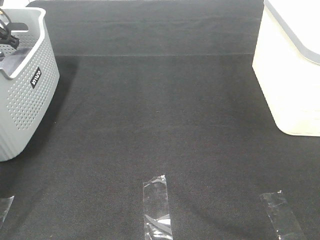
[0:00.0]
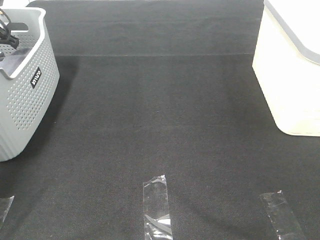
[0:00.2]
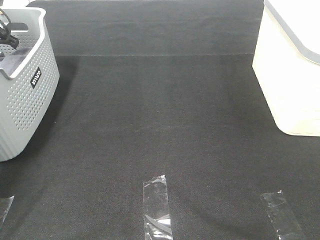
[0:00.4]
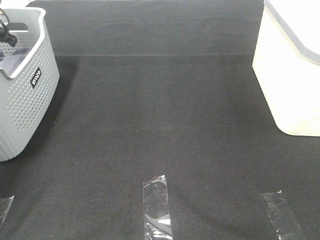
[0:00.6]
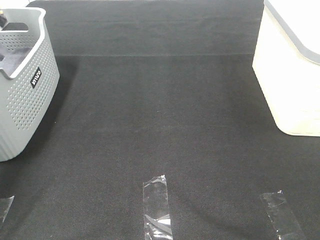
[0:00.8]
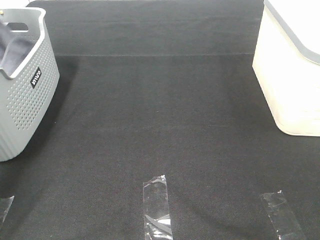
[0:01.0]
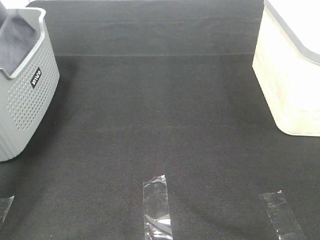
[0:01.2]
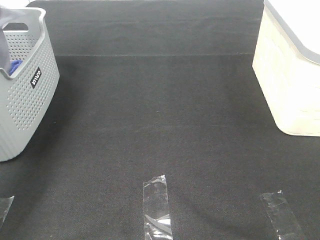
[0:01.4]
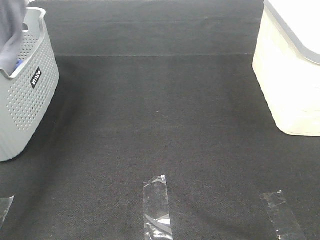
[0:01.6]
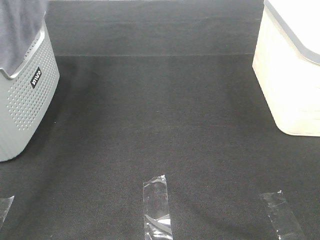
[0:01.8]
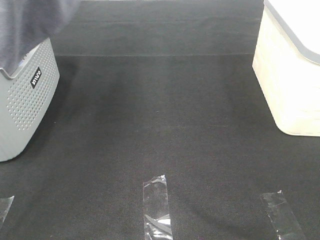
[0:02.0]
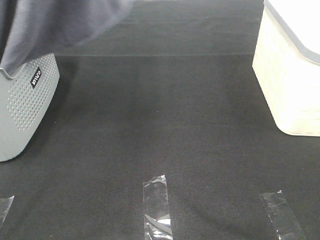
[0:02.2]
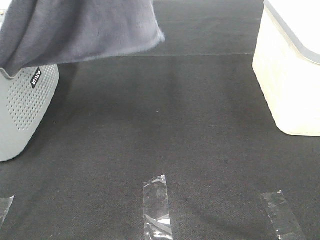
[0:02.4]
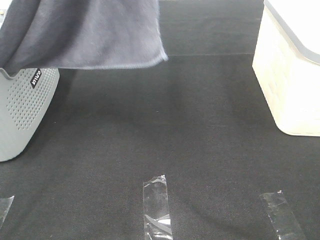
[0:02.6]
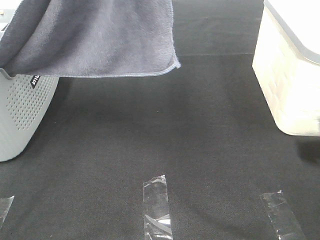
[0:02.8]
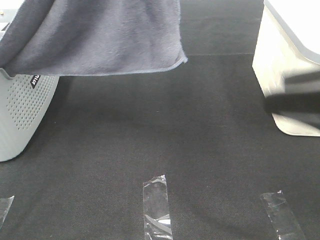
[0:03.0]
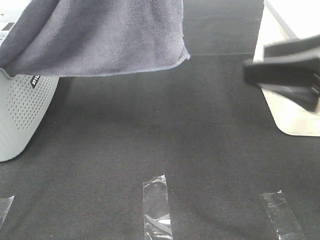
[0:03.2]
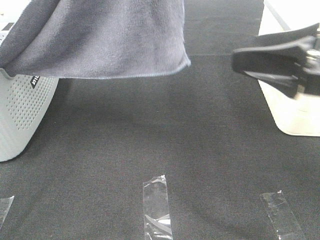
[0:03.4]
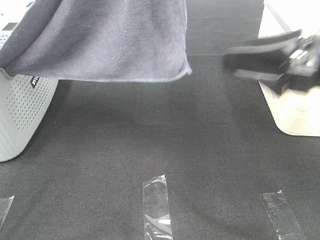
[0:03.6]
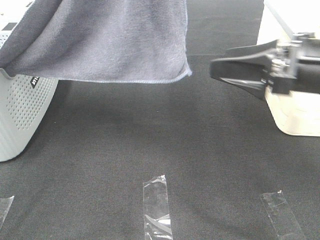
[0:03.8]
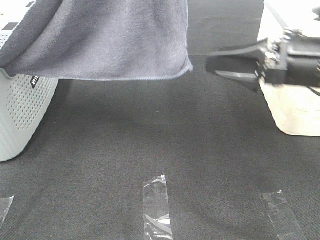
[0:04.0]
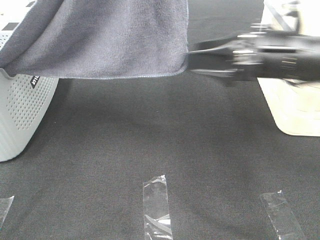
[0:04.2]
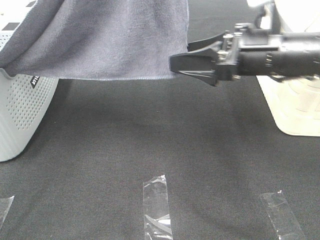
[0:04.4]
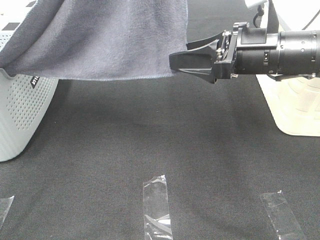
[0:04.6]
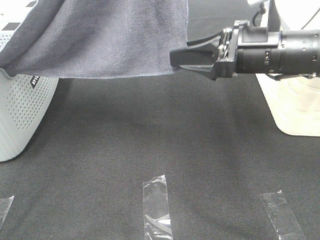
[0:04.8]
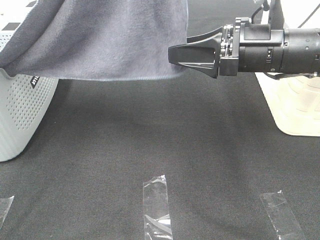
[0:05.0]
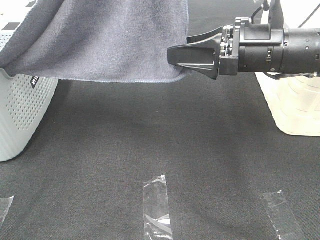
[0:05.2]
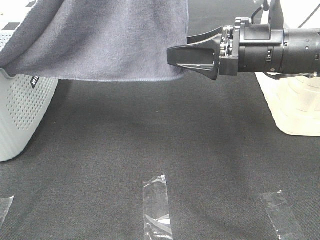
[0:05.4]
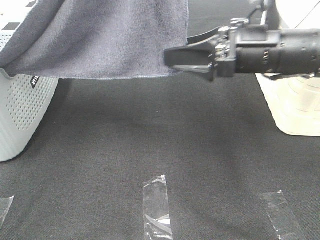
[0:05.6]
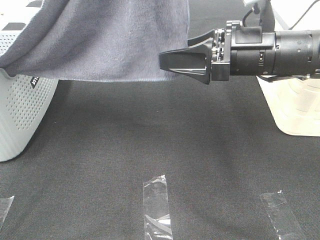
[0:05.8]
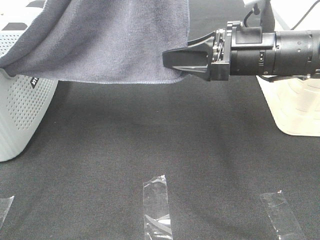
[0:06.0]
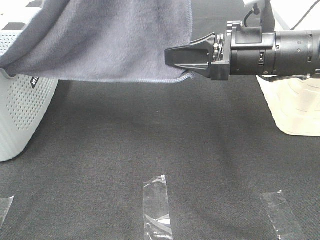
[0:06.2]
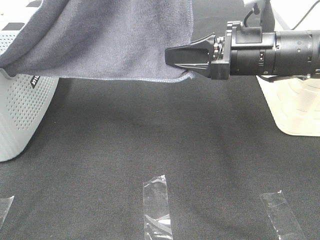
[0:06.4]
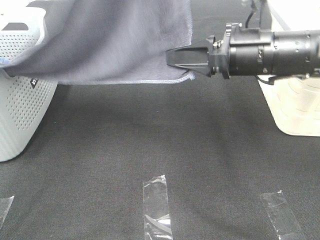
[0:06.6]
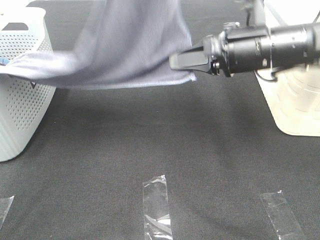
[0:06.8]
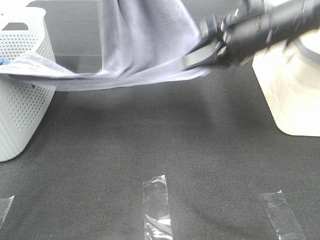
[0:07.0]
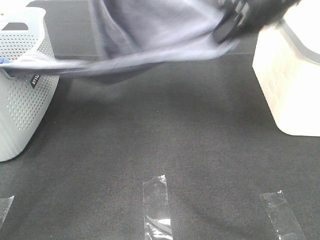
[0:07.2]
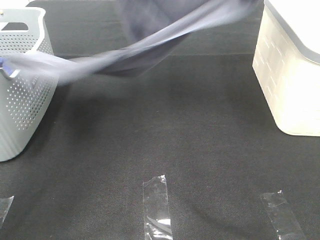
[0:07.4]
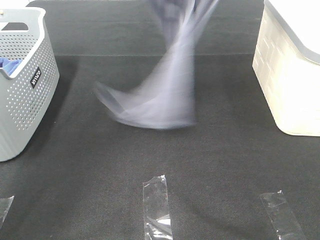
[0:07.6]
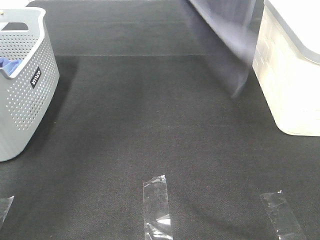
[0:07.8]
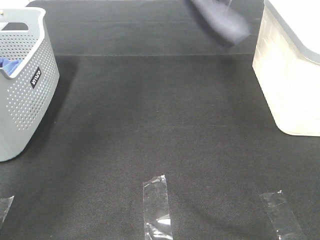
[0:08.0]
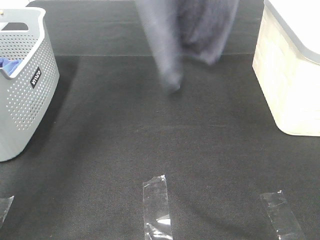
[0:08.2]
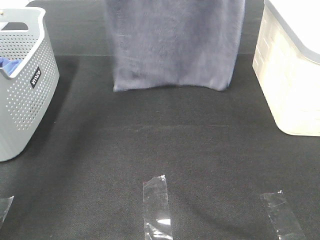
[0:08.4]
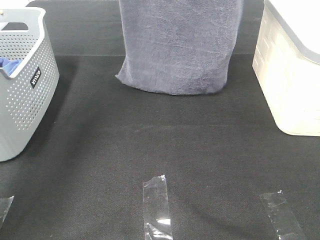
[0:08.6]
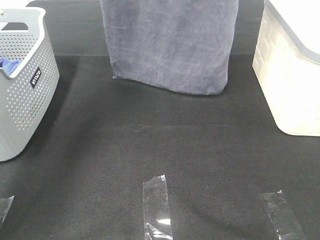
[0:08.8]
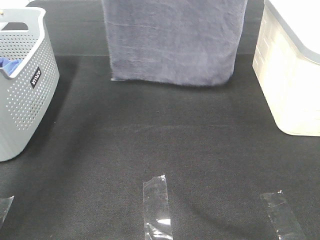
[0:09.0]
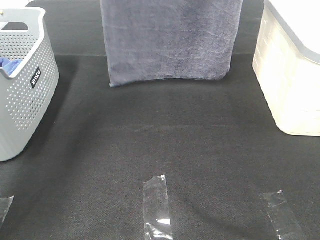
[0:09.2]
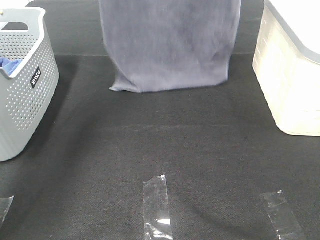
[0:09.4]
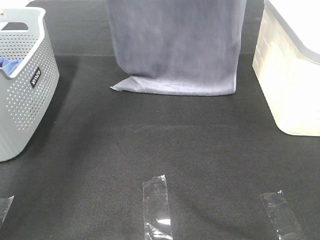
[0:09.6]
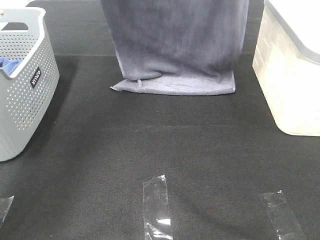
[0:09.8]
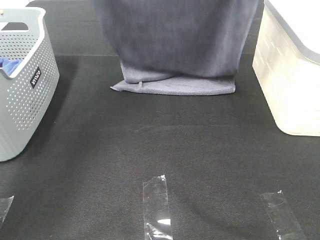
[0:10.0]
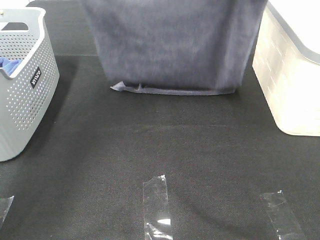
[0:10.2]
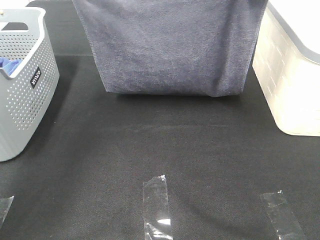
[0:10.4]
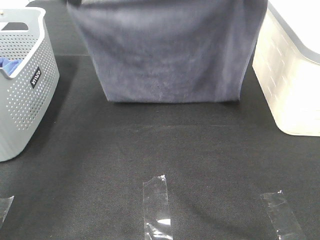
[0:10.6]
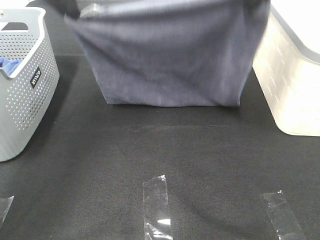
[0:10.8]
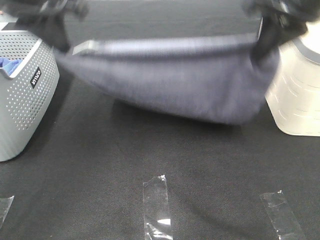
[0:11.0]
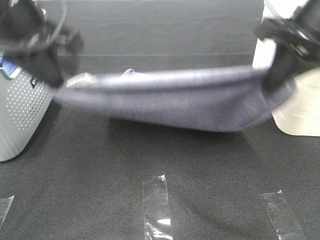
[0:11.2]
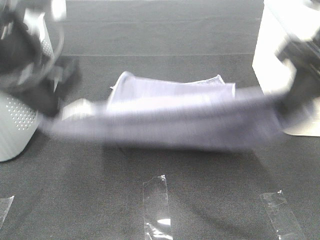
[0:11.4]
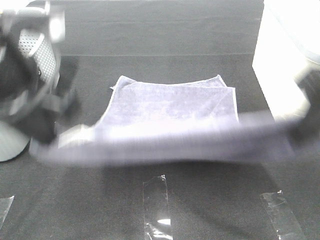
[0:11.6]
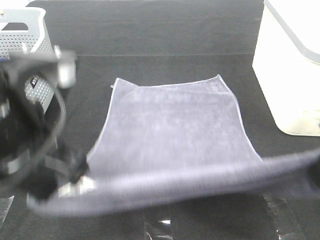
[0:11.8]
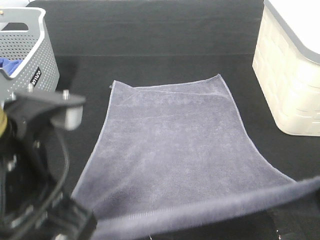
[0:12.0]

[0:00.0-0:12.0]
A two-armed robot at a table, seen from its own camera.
Task of the whole recording: Remove the towel and place it.
Step, 0:01.8 to 0:05.6: Right hand: grab a corner of the grey towel and straighten it.
Step, 0:05.8 to 0:09.2: Left hand: spread the grey towel flat on the table.
Step, 0:05.8 to 0:09.2: Right hand: spread the grey towel flat on the table.
0:00.0 to 0:01.6: The left gripper heads upward and backward, covering some 35 cm, and closes its fingers.
0:01.6 to 0:03.0: The left gripper shifts about 25 cm to the right and backward; the right gripper goes some 15 cm forward and to the left.
0:03.0 to 0:04.4: The right gripper travels forward, downward and to the left by about 20 cm.
0:04.4 to 0:06.0: The right gripper closes.
0:06.0 to 0:07.6: The left gripper heads forward and to the left, covering roughly 20 cm, while the right gripper goes about 25 cm upward.
0:09.0 to 0:10.4: The two grippers go some 10 cm downward.
0:10.4 to 0:12.0: The left gripper shifts about 30 cm backward, while the right gripper heads backward and downward, covering about 30 cm.

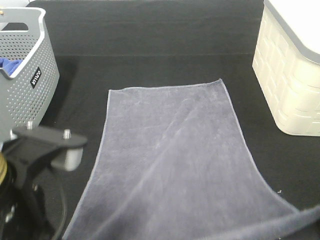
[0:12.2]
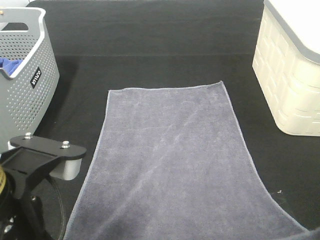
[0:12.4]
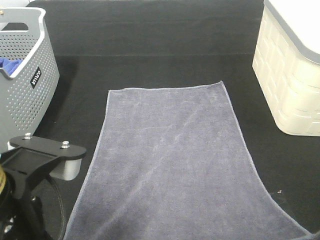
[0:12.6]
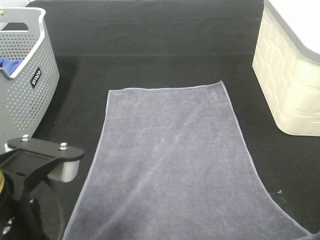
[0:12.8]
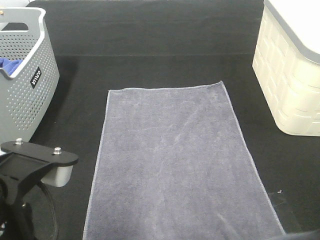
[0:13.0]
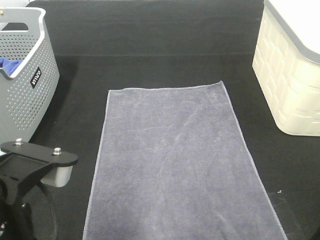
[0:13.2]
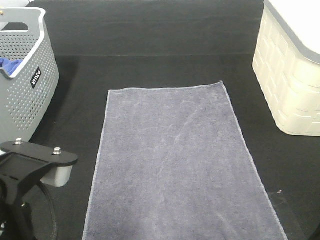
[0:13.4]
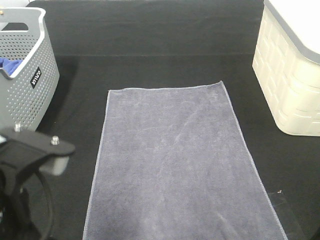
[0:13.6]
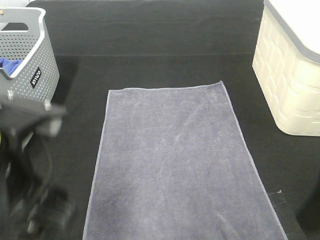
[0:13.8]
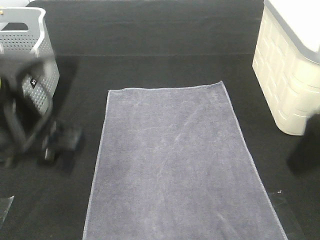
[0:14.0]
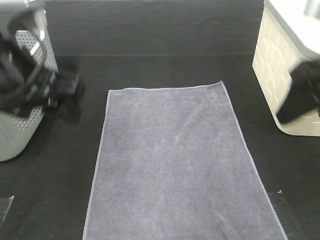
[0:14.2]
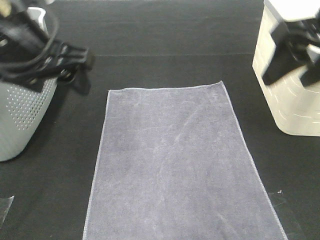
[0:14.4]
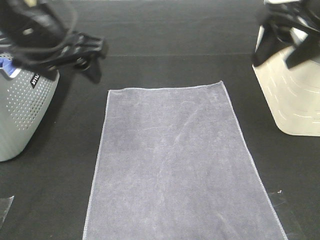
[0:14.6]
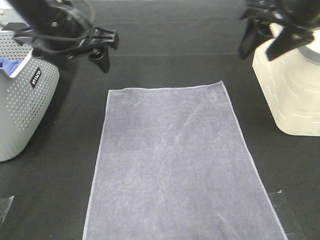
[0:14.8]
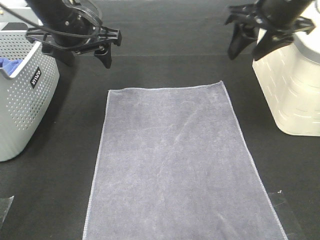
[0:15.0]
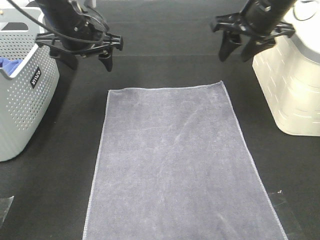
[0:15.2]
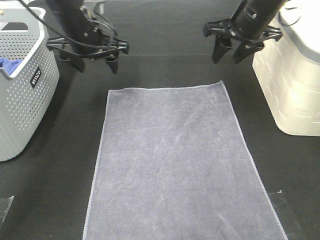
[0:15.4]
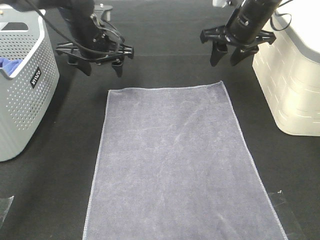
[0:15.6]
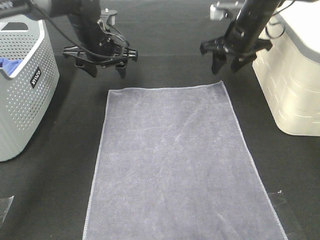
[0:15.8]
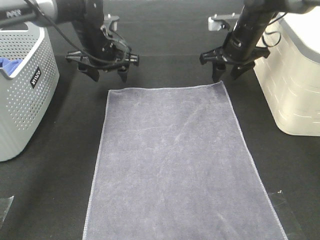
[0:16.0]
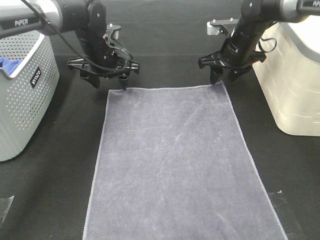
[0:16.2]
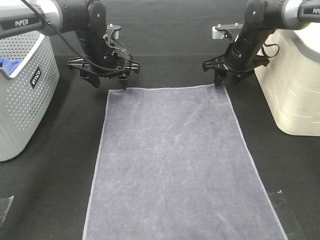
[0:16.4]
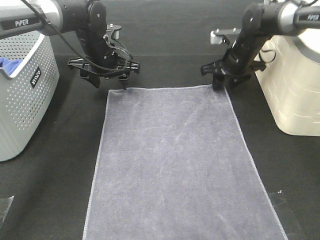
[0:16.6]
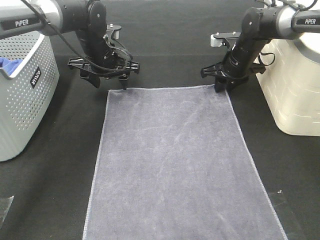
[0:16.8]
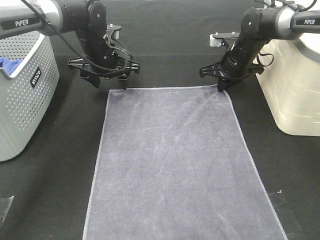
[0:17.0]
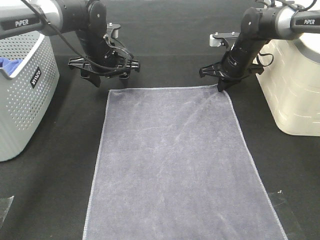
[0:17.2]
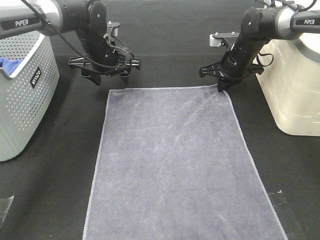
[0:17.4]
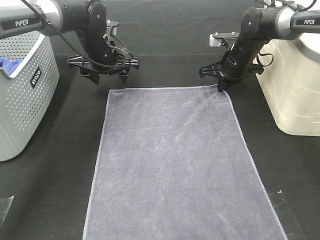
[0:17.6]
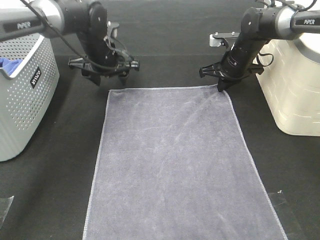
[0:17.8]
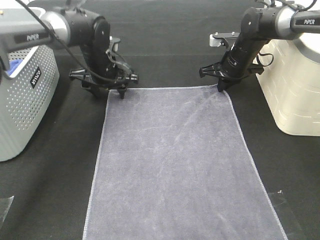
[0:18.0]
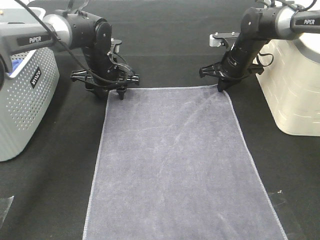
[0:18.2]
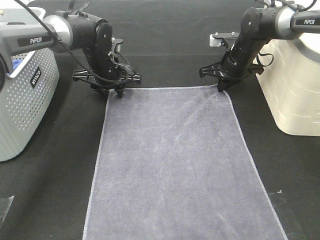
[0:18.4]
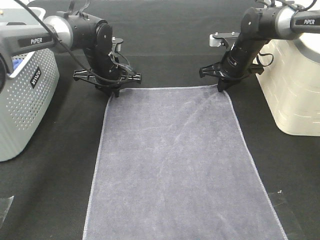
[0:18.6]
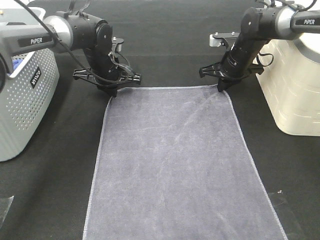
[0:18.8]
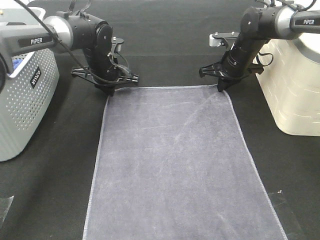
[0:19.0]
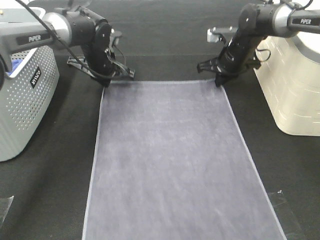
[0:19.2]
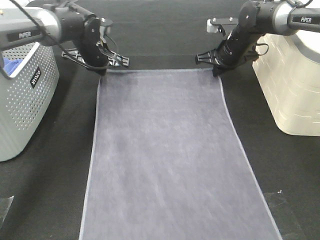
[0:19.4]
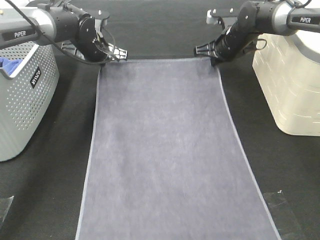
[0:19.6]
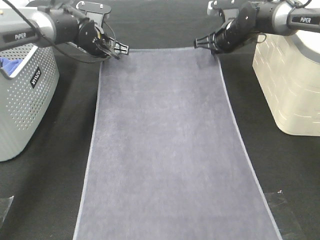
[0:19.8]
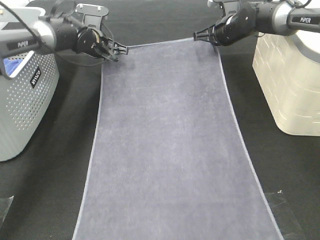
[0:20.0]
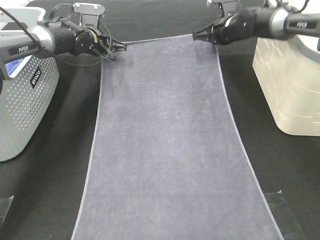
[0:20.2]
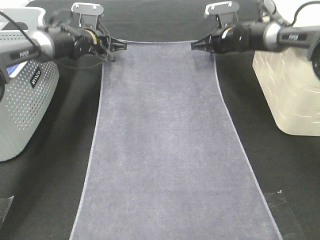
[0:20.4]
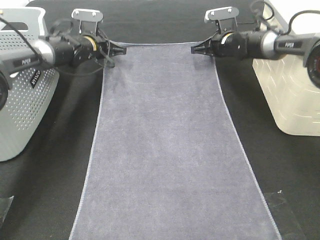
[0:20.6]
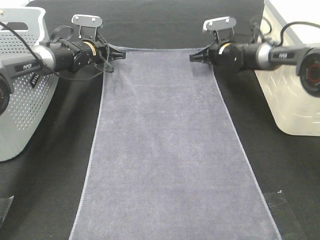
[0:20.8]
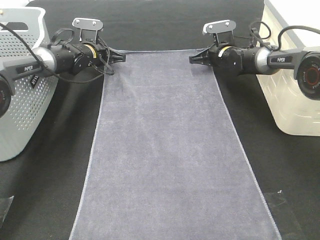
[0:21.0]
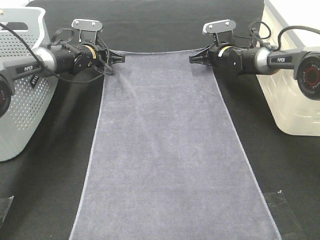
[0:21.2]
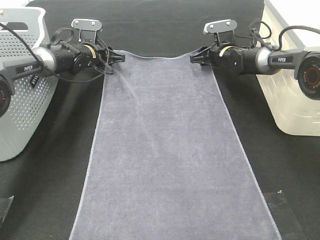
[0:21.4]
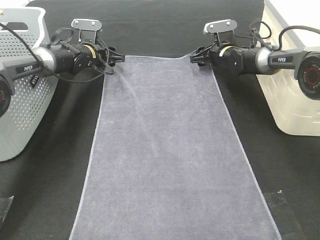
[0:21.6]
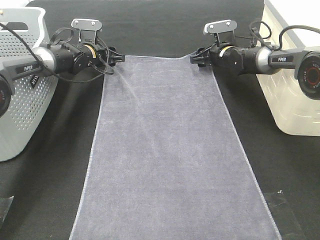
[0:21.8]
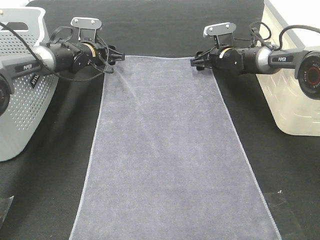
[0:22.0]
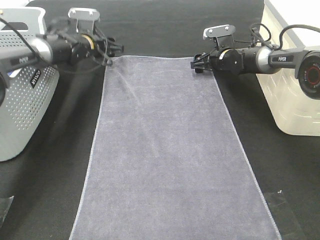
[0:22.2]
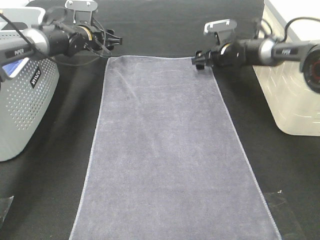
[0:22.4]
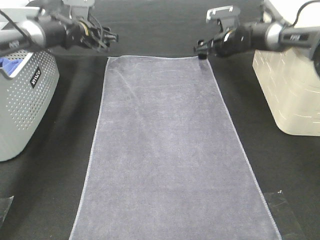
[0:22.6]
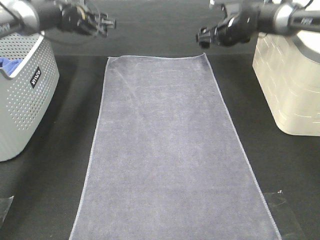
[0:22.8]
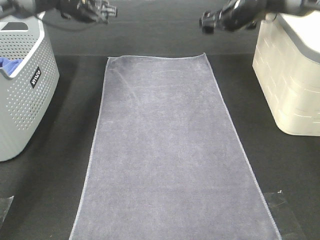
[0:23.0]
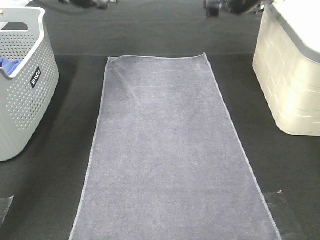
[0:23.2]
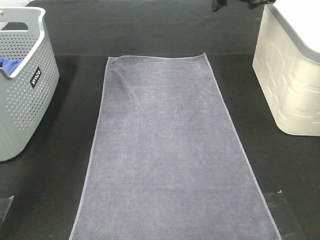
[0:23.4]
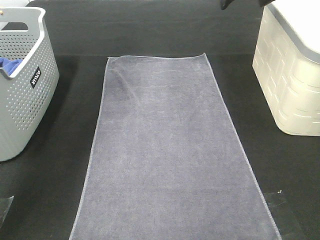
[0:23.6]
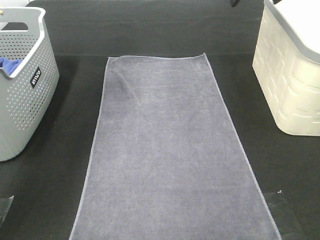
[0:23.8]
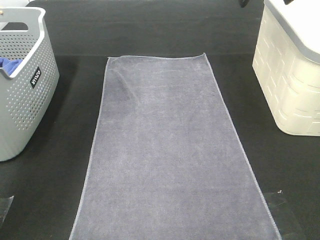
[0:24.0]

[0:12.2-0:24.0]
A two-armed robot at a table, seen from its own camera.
Task of the whole recording: Remove the towel and place it.
Step, 0:12.2 to 0:16.4: Left hand:adjust the gray towel.
Step, 0:12.2 to 0:16.4: Right hand:adjust the gray towel.
0:12.2 to 0:13.6: The left gripper opens up. The right gripper opens its fingers.
0:13.6 to 0:15.2: Both grippers move forward, roughly 35 cm.
0:15.2 to 0:16.6: The right gripper is displaced downward and forward by some 15 cm. The left gripper is displaced downward and forward by some 10 cm.
0:16.6 to 0:18.2: The right gripper closes its fingers.
0:18.2 to 0:19.6: The left gripper shifts by roughly 5 cm, and closes.
0:19.6 to 0:21.0: The grippers both shift downward by roughly 5 cm.
0:21.0 to 0:22.6: Both grippers move upward, roughly 5 cm. The left gripper opens up, while the right gripper opens.
0:22.6 to 0:24.0: Both grippers move upward and backward, about 30 cm.
